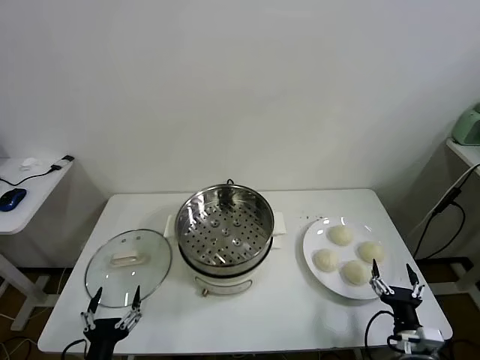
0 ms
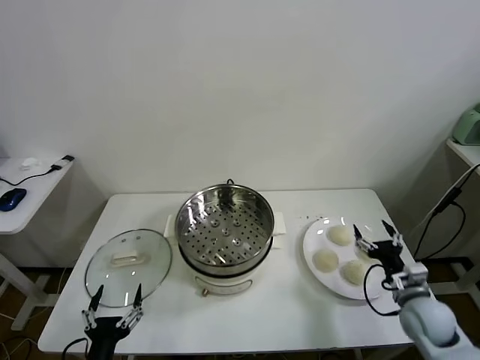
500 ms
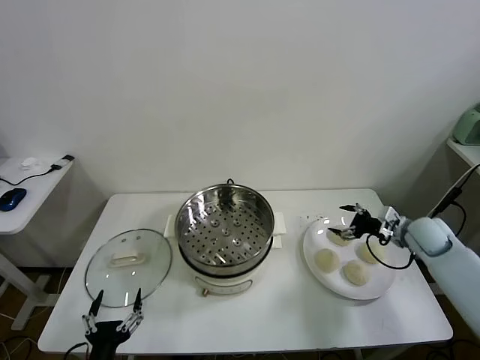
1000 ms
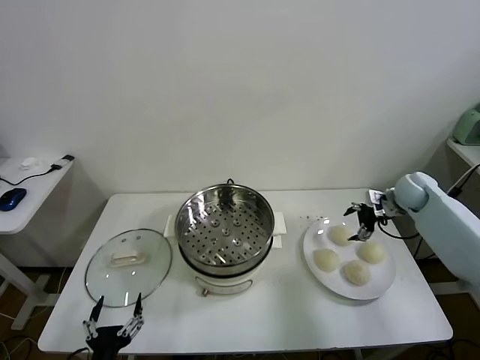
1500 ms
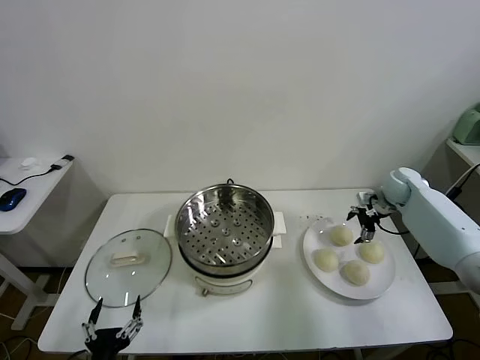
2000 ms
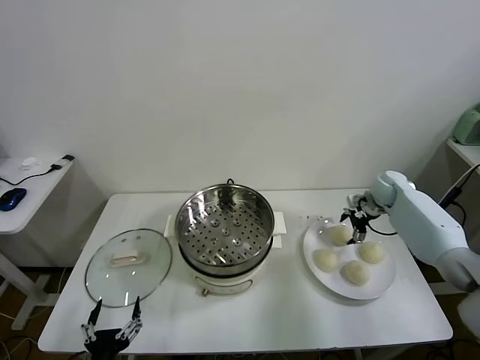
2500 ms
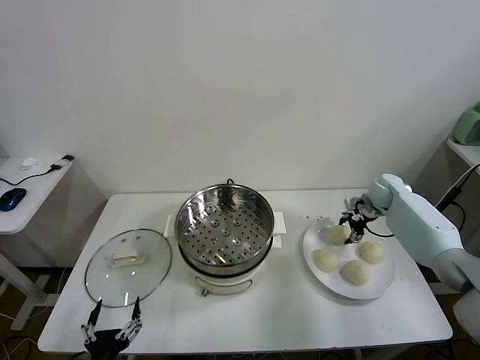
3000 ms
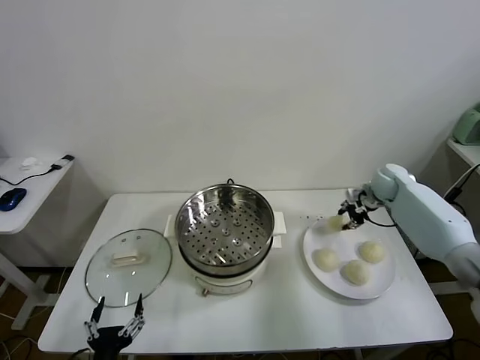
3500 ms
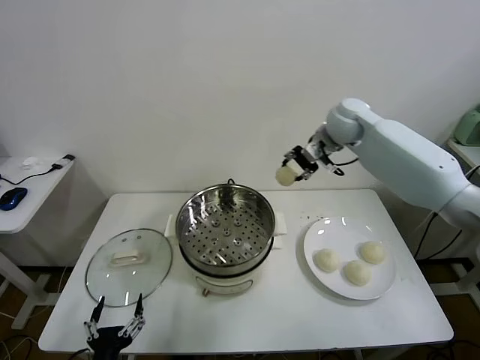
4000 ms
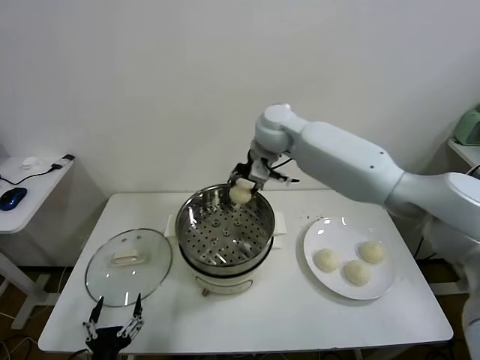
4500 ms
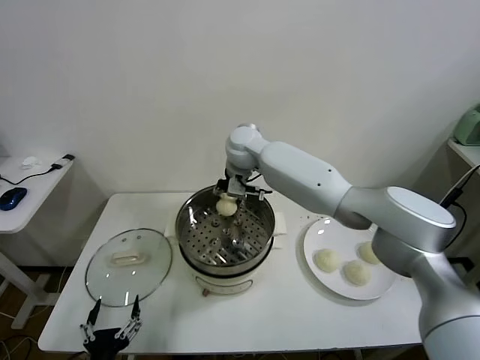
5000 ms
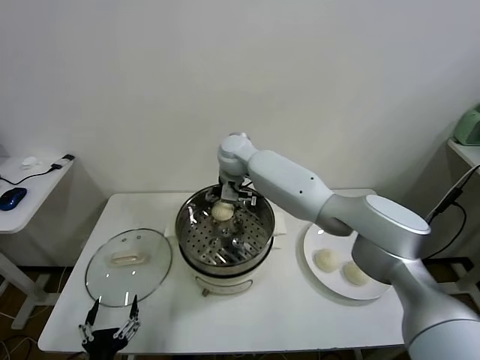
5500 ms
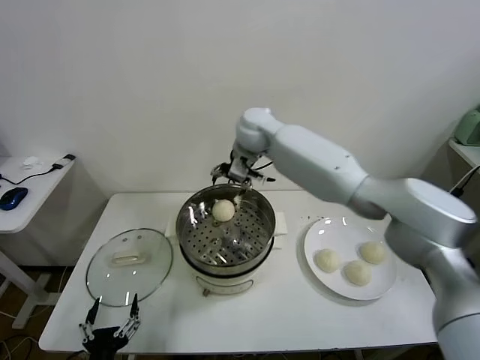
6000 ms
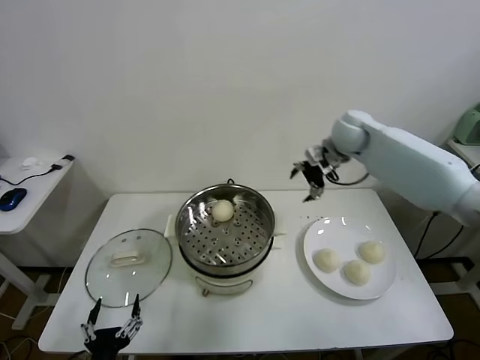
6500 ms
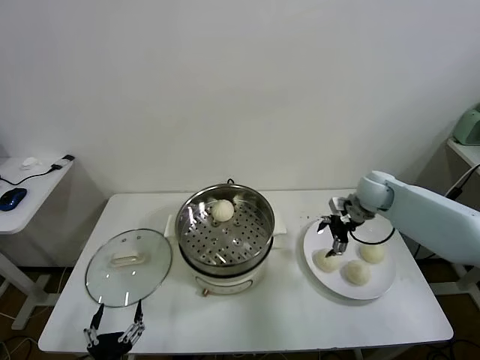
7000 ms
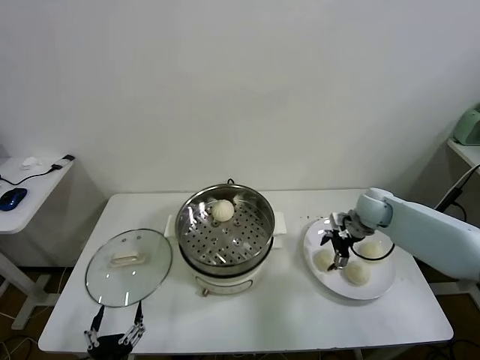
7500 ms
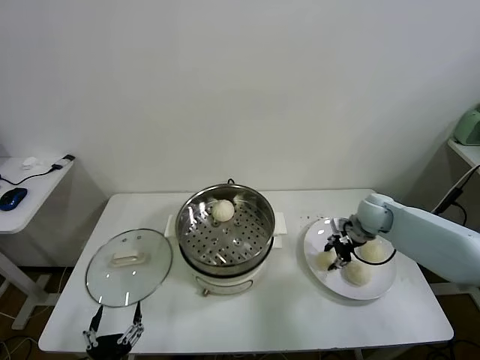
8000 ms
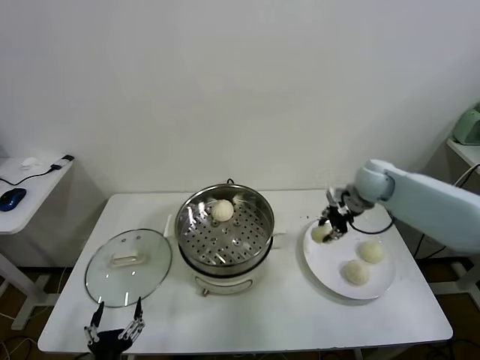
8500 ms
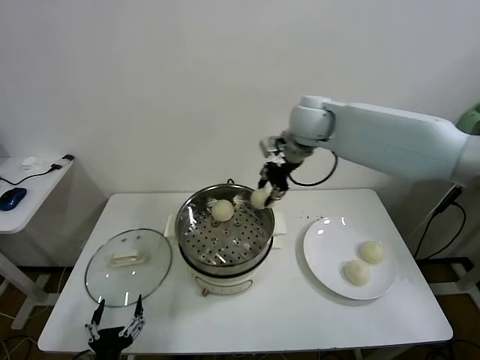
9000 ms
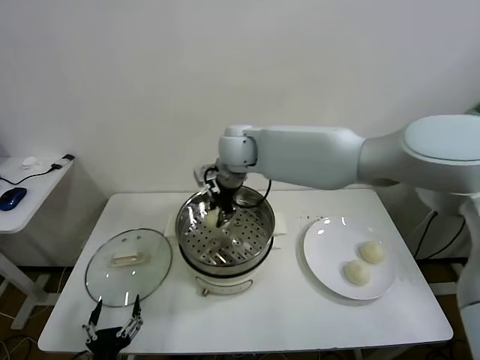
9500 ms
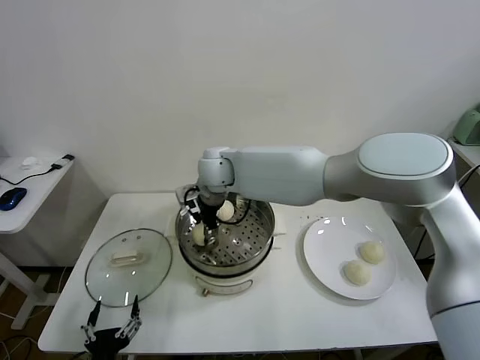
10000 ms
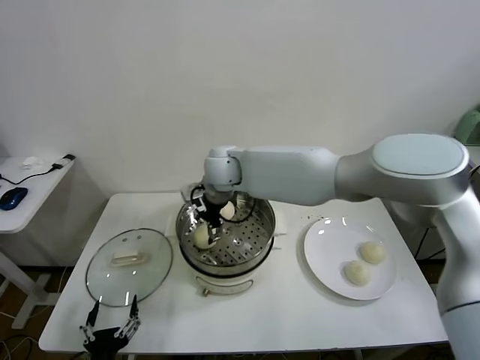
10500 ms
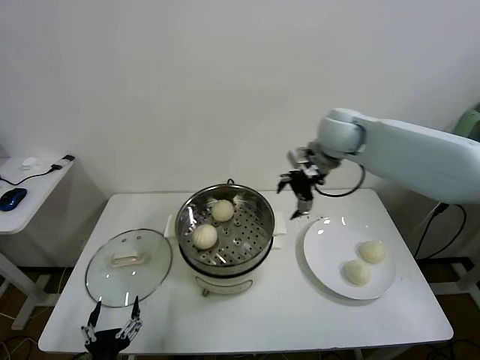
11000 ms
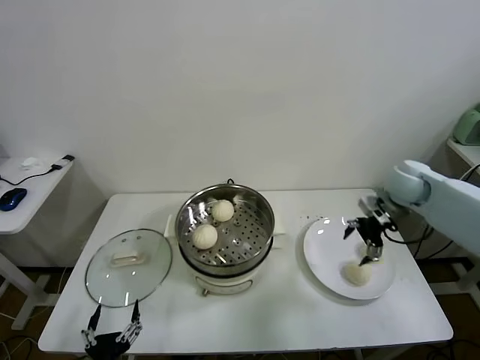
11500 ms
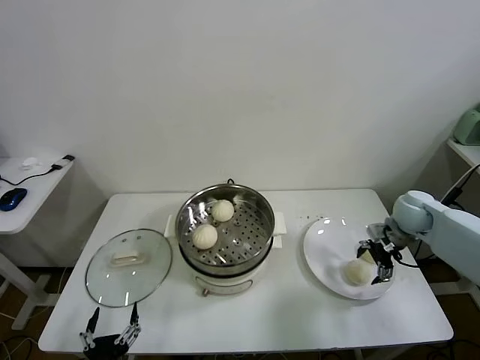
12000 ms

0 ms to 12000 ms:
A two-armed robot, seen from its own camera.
Task of the whole recording: take steamed baozi put them in steamer.
Step, 0 ms to 3000 ms: Grasp the baozi in the plate with right gripper.
Step, 3500 ms to 5500 ms: Place the baozi on the steamer with right gripper.
Step, 6000 ms to 8000 ms: Grasp the baozi in the plate with right gripper.
Step, 8500 ms to 10000 ms: Place the baozi on the steamer with right gripper.
2000 ms to 4000 ms: The right gripper travels to the left and upward by roughly 30 cm, and closes.
4000 ms to 6000 ms: The right gripper goes some 10 cm to the left, and opens.
6000 ms to 8000 ms: The right gripper goes roughly 35 cm to the right and downward, and closes up.
8000 ms to 10000 ms: The right gripper goes some 40 cm to the left, and opens its fingers.
10000 ms to 12000 ms: The right gripper moves to the right, roughly 50 cm.

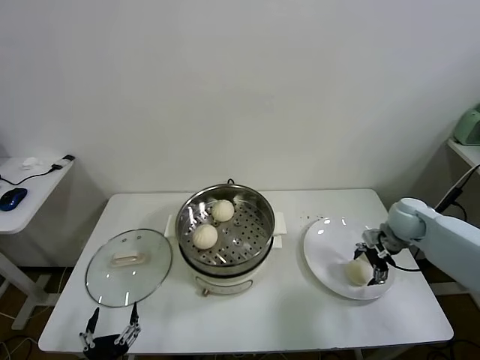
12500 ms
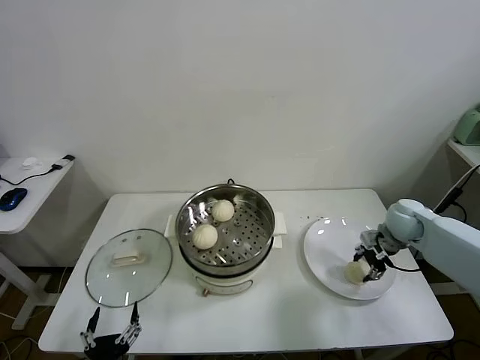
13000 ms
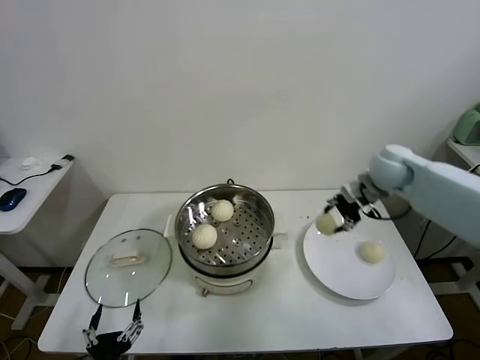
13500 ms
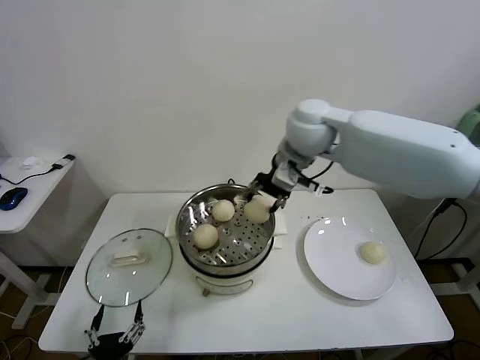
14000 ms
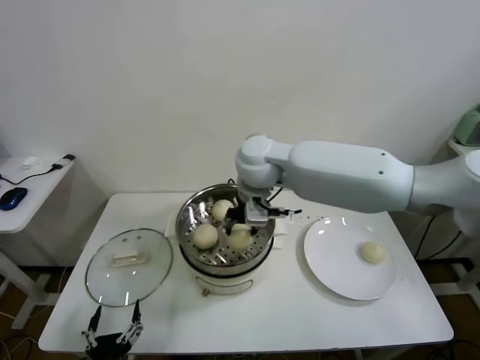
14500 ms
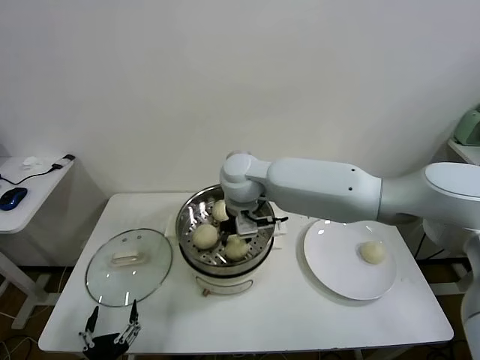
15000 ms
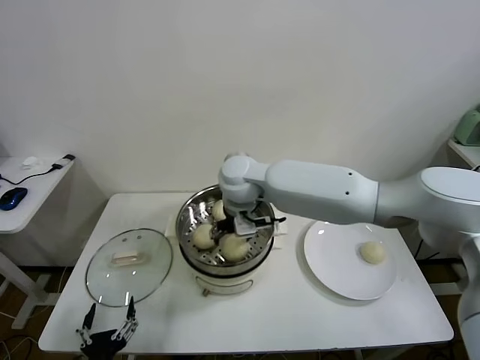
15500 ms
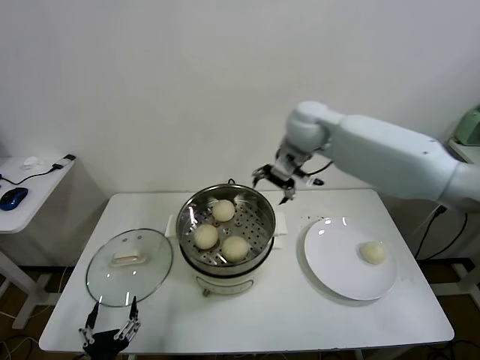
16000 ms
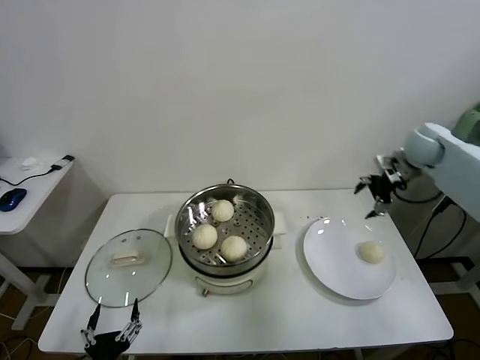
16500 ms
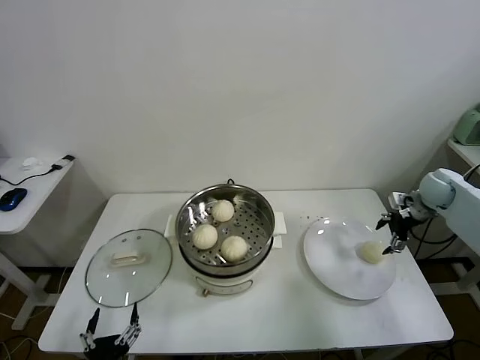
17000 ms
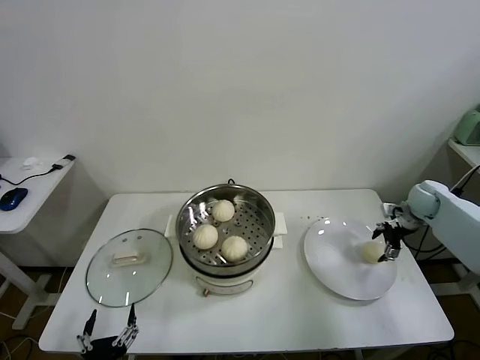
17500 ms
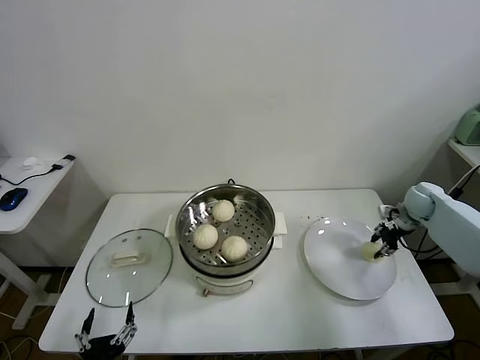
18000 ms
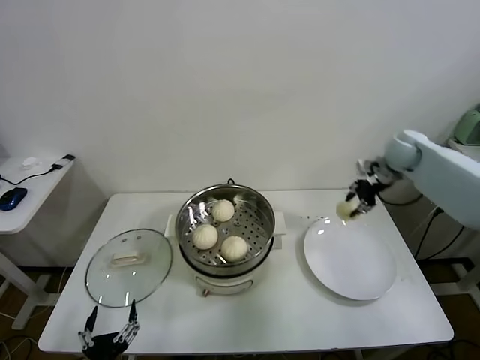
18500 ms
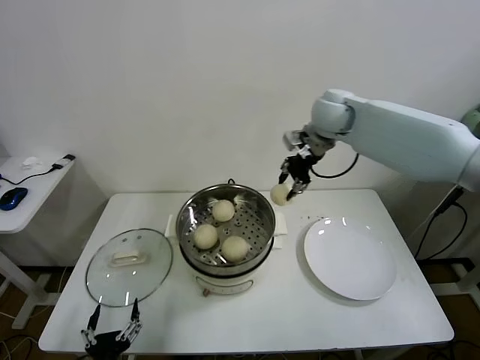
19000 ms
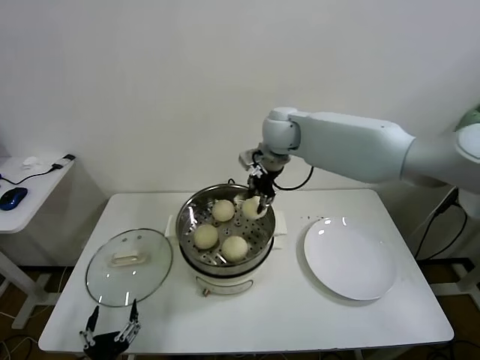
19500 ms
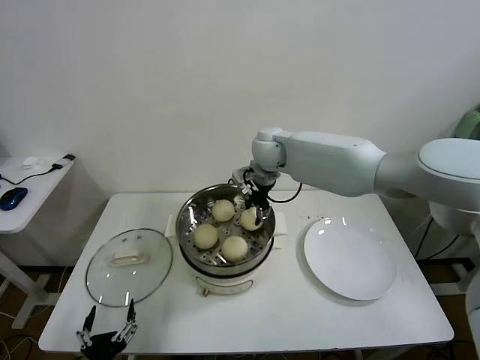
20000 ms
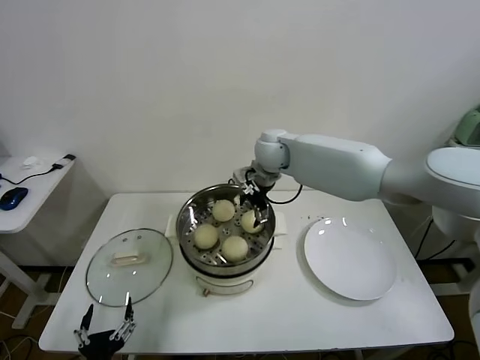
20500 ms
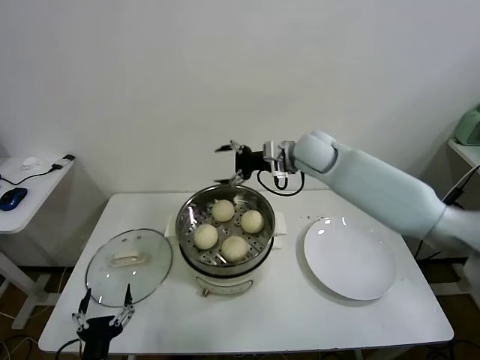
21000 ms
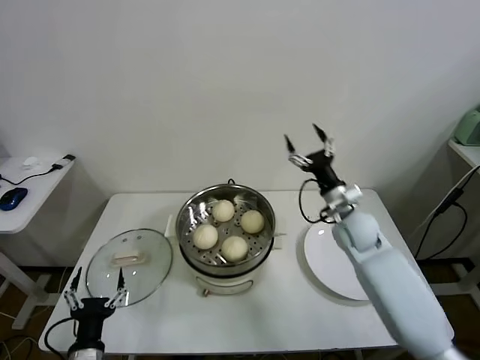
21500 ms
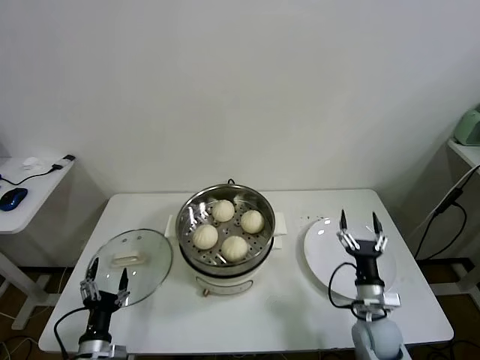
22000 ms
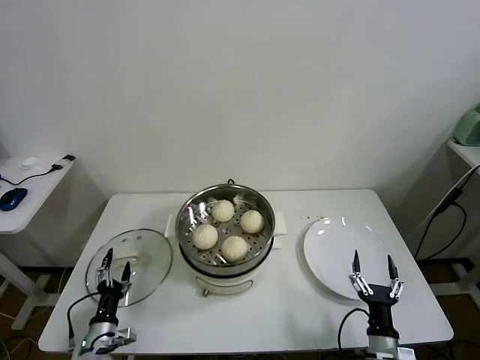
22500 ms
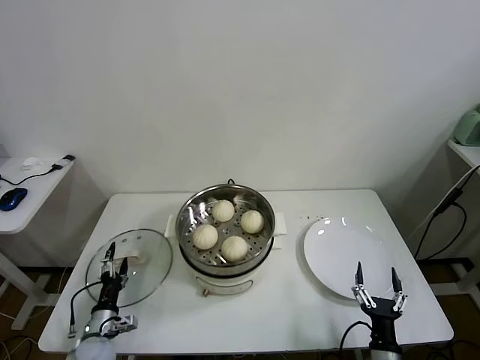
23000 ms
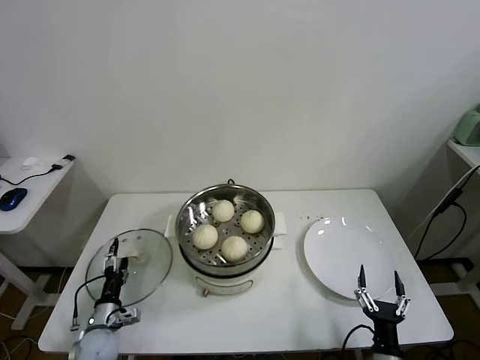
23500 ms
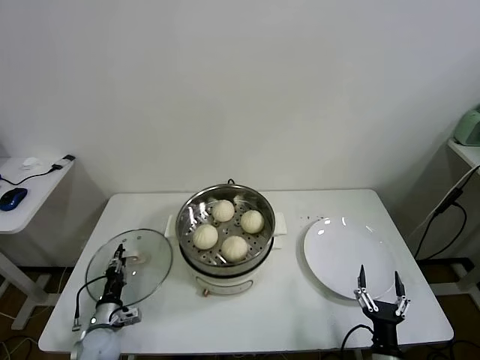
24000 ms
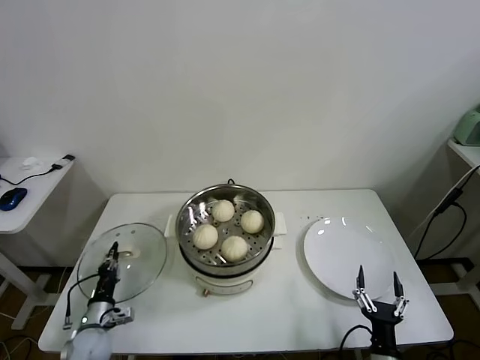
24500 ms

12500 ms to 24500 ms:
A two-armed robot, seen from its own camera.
Task of the whole recording: take steamed baozi put them in steamer.
Step, 13000 ms to 15500 ms: Place the baozi on the steamer with right gripper.
Step, 16000 ms to 17500 ms: Grasp the baozi in the plate with right gripper.
Step, 18000 ms to 20500 ms: Place the baozi on the steamer with right gripper.
Step, 21000 ms to 24000 ms: Grasp the pot lid with left gripper.
12500 ms to 14500 ms: The right gripper is displaced to the left and upward by some 40 cm, and closes.
14500 ms to 16500 ms: The right gripper travels to the right by approximately 40 cm, and opens its fingers.
16500 ms to 18500 ms: The right gripper moves some 15 cm downward and comes back, and closes.
18500 ms to 20500 ms: The right gripper travels to the left by approximately 30 cm, and opens.
20500 ms to 22500 ms: The left gripper goes approximately 20 cm forward, downward and to the left. The right gripper moves backward, downward and to the right, roughly 60 cm.
22500 ms to 24500 ms: The left gripper heads forward, covering roughly 5 cm, and closes up.

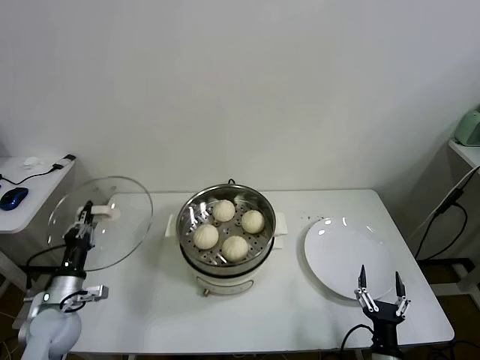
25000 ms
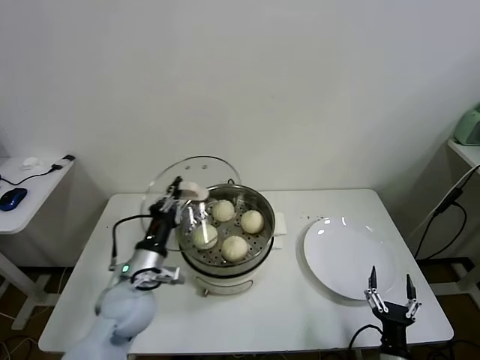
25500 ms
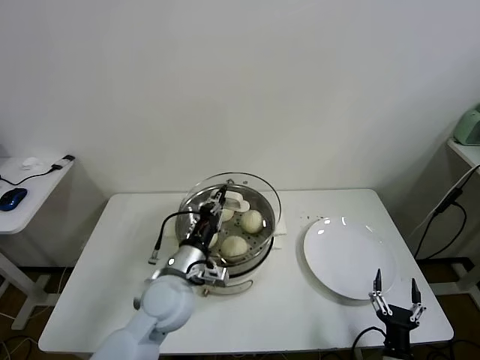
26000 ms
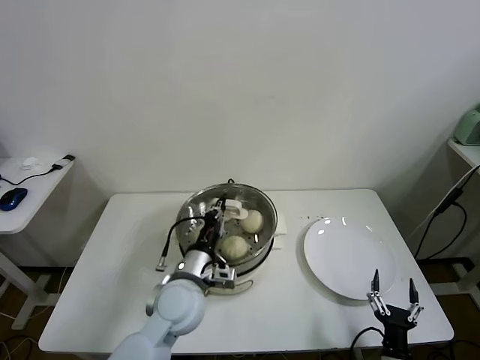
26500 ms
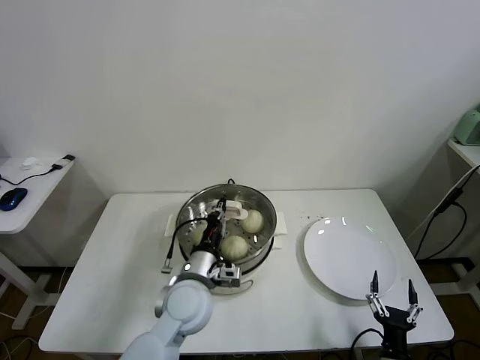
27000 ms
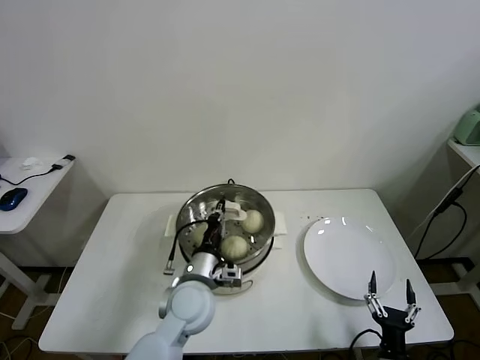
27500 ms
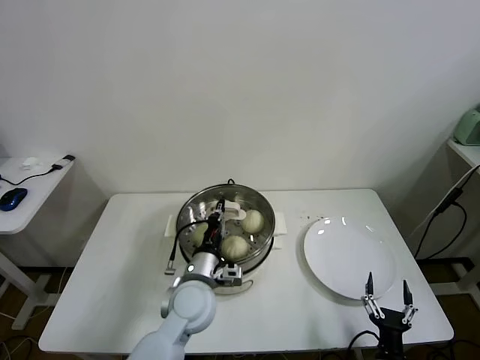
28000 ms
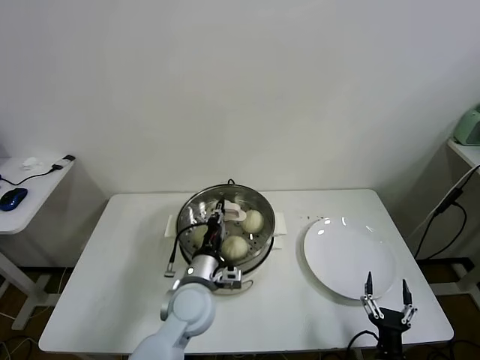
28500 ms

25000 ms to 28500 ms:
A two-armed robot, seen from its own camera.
Task of the whole recording: take steamed baozi put them in steamer.
25000 ms to 27000 ms: The left gripper shifts some 30 cm to the right.
27000 ms to 28500 ms: There are only small adjustments of the grippers.
